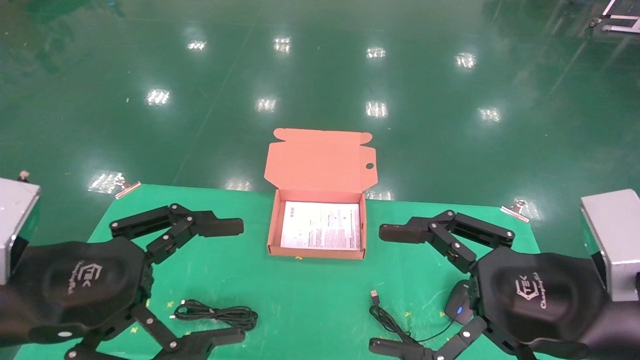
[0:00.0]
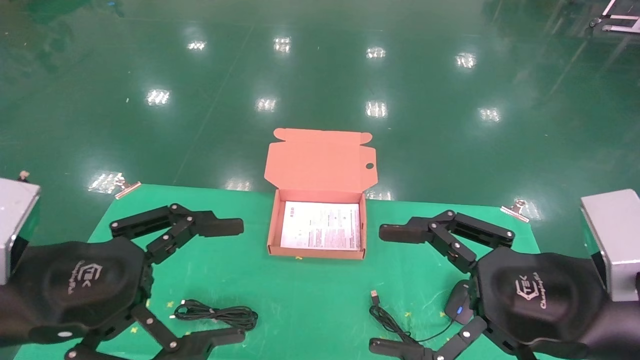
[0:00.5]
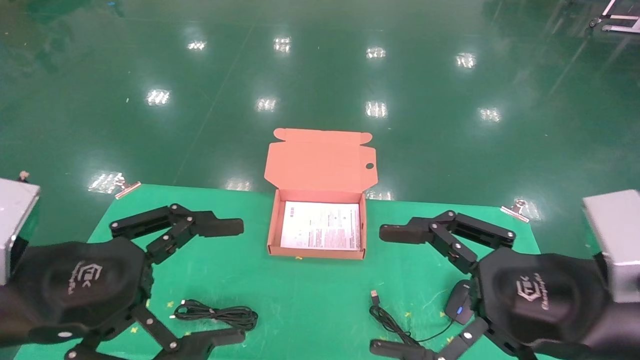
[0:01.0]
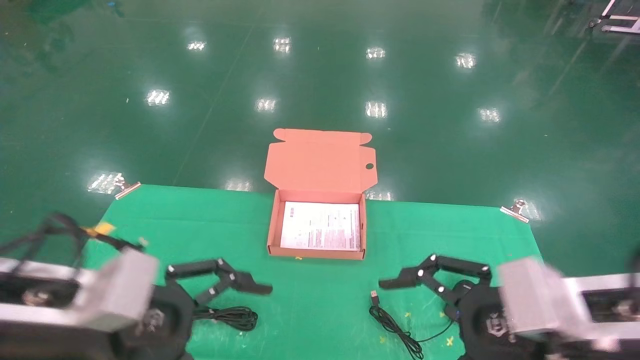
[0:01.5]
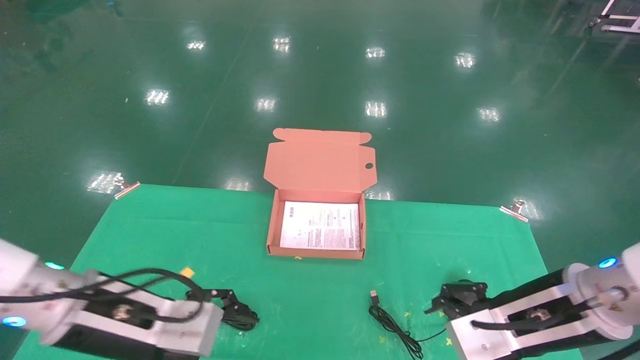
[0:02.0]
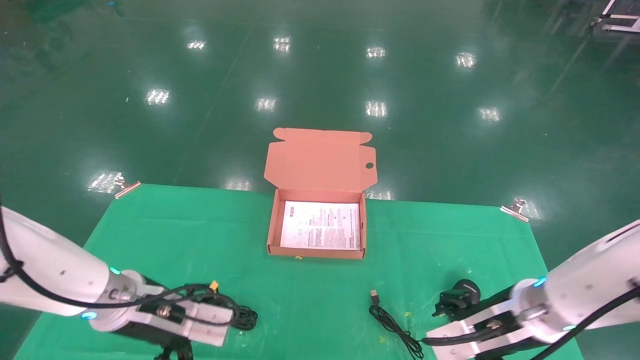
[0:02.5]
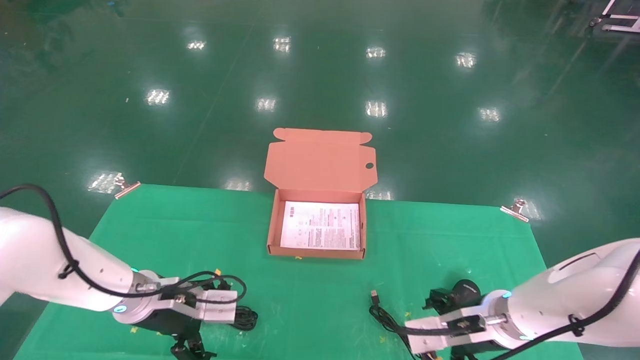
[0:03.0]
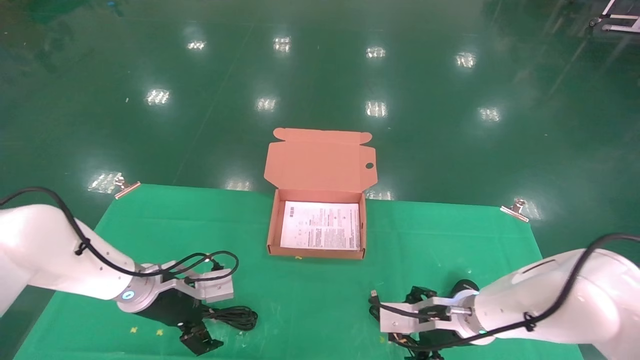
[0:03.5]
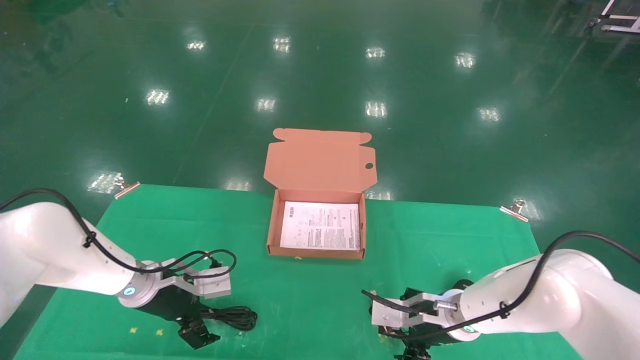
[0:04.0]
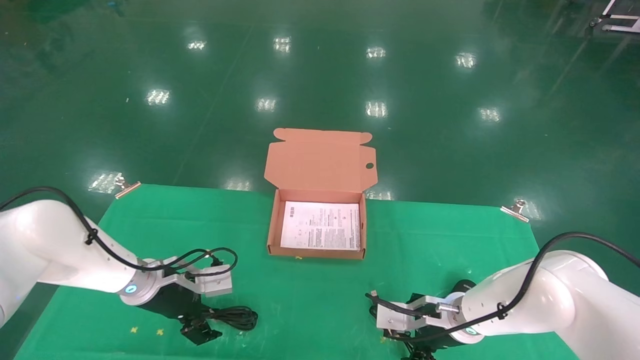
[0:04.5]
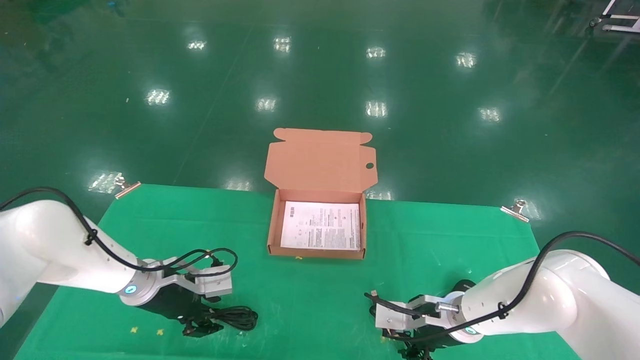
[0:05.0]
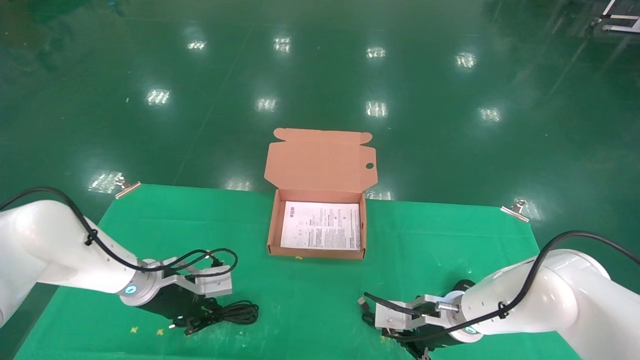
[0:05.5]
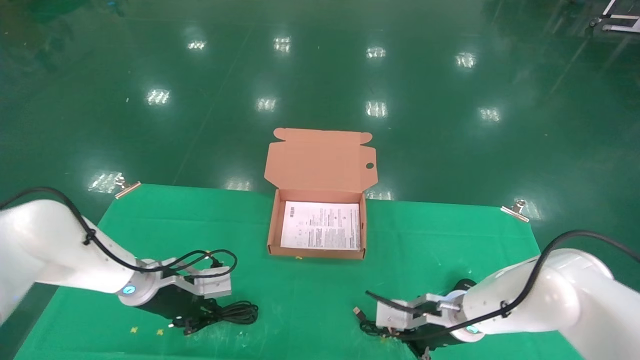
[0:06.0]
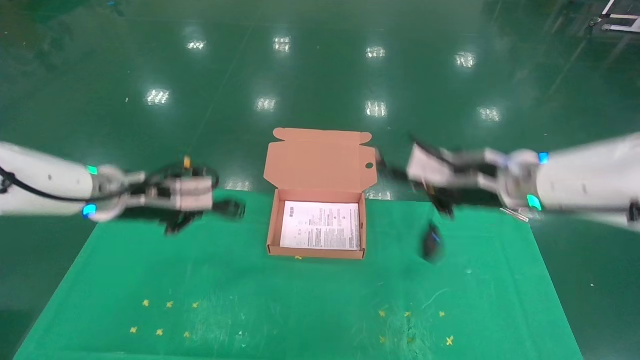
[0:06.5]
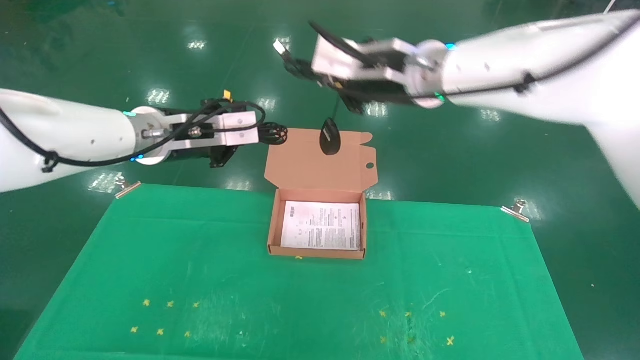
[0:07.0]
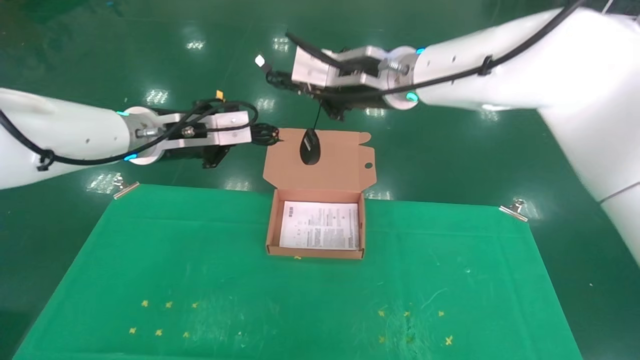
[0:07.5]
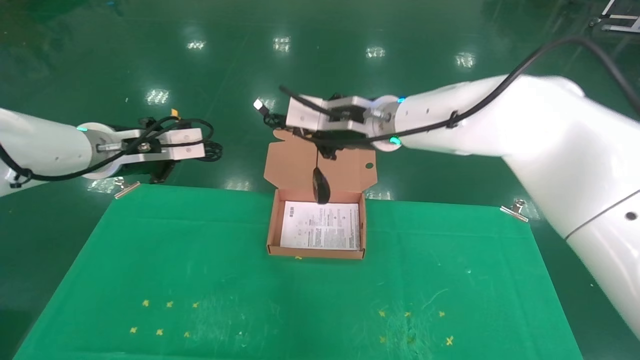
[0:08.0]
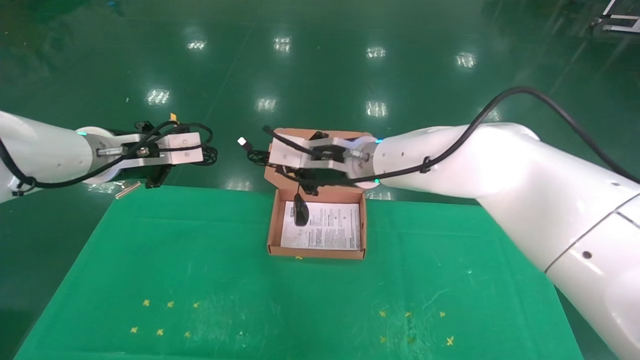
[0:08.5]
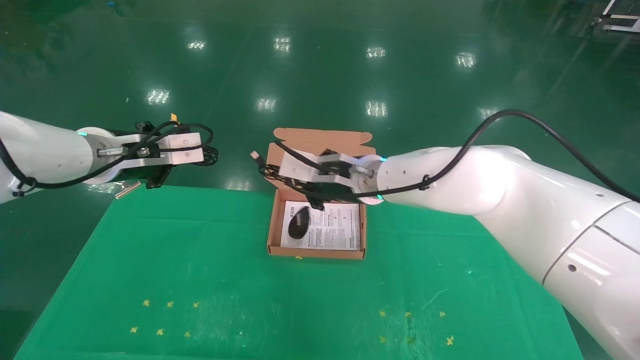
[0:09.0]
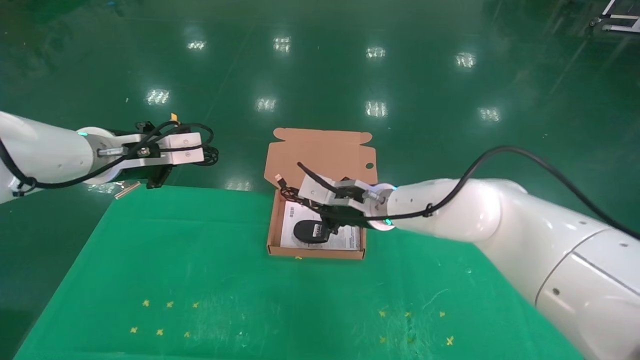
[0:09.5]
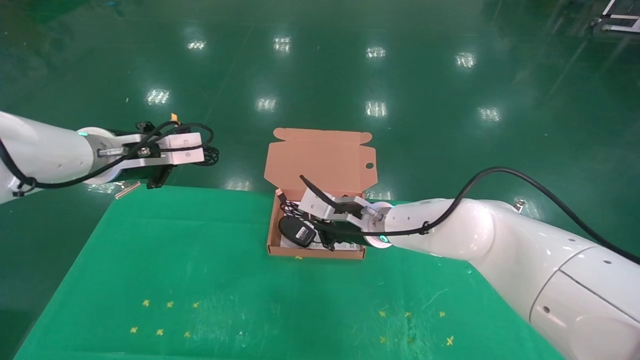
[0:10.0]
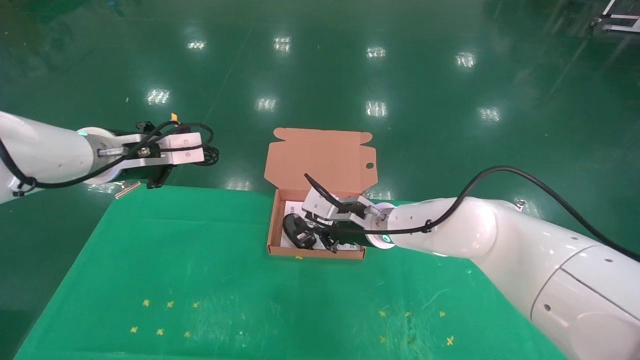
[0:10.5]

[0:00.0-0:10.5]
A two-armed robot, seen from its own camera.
Task of the whole recording: grasp data cable left put into box grasp mouse right put into box.
Step, 0:01.5 to 0:06.5: Grab and pick up both the mouse and power cord from the accessory packaging area at the same time.
0:00.0 to 0:02.0: The two grippers go about 10 cm forward and downward.
0:02.0 to 0:04.0: The left gripper moves forward and downward, roughly 20 cm. The right gripper is displaced downward, forward and to the left by some 20 cm.
0:04.0 to 0:06.5: Both grippers travel together upward, some 20 cm. The right gripper closes its fingers; the left gripper closes its fingers.
0:06.5 to 0:08.5: The right gripper heads to the left, covering about 15 cm.
0:08.5 to 0:10.5: The right gripper heads downward, covering roughly 10 cm.

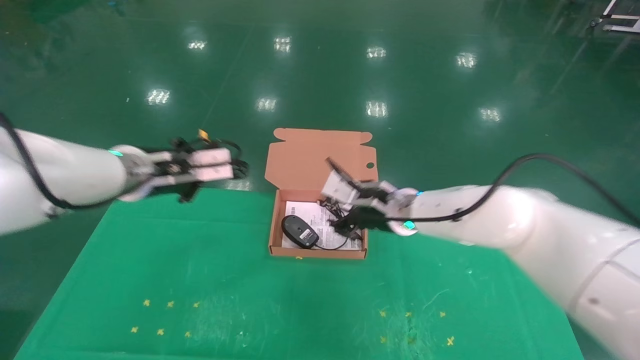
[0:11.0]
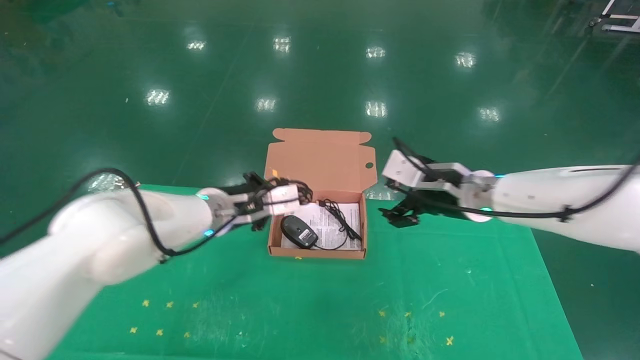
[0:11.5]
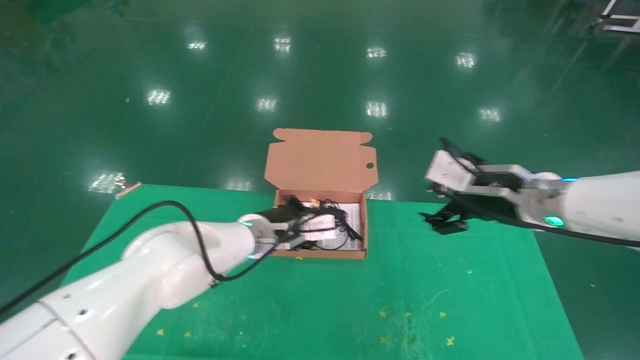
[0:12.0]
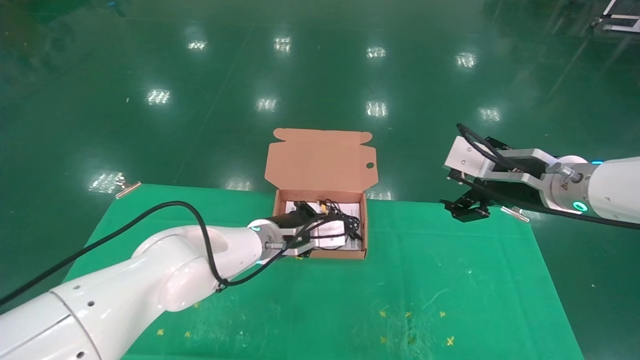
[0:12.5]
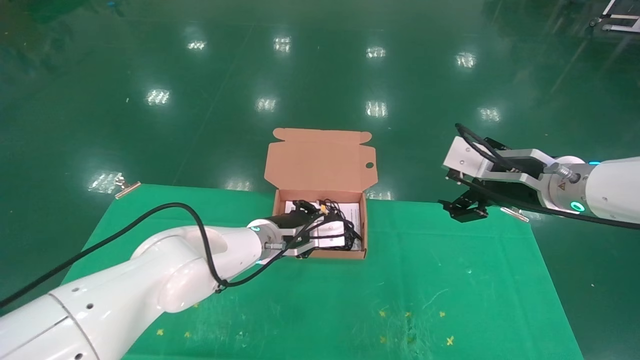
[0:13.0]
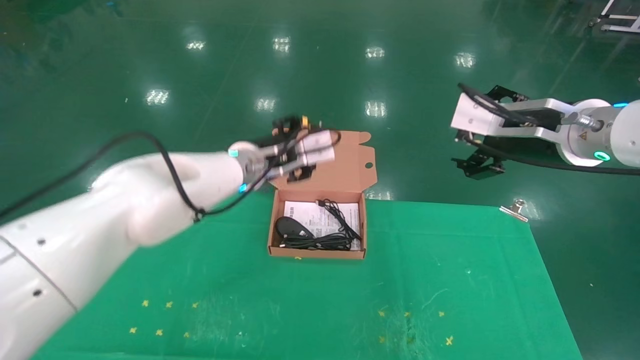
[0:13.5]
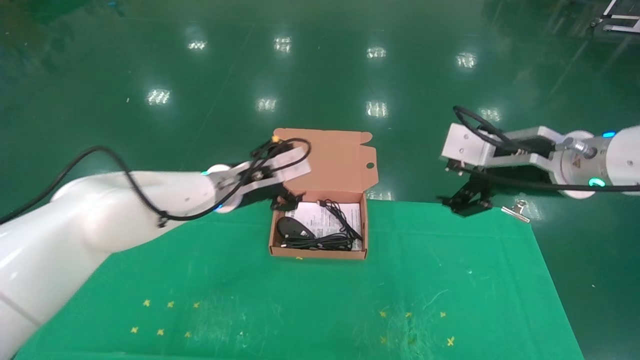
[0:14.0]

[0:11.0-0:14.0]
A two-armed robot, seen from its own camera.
Task of the whole recording: grasp data cable left put into box grasp mouse right put into box.
Step, 0:11.0 to 0:13.5: Place the mouse and power cord into the box.
0:11.0 to 0:12.5: The right gripper travels to the right, backward and upward by about 20 cm, and opens up, while the left gripper shifts roughly 20 cm to the right and downward.
0:12.5 to 0:14.0: The left gripper shifts roughly 10 cm to the left and upward, and opens.

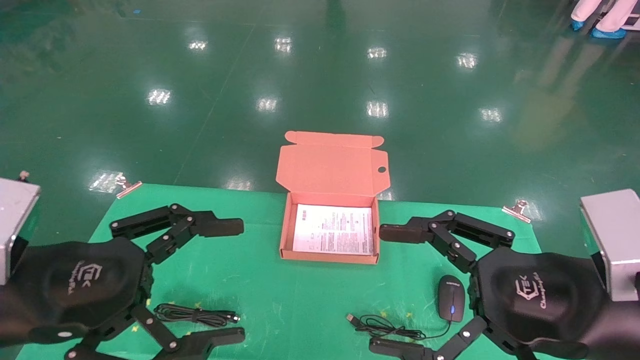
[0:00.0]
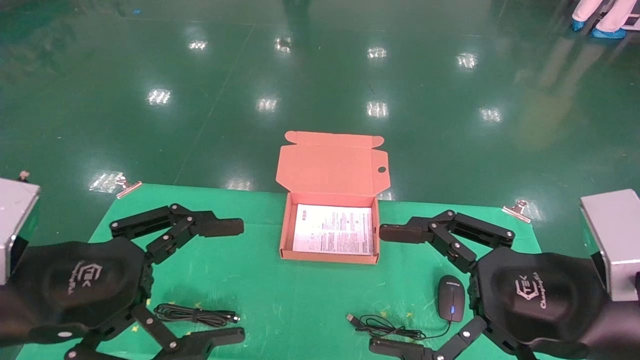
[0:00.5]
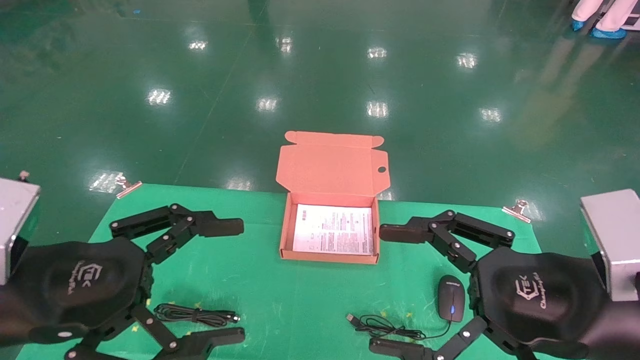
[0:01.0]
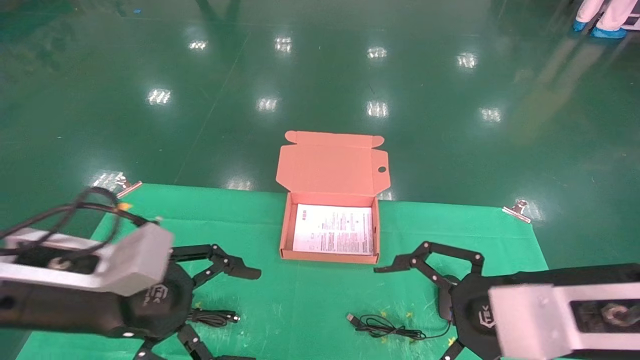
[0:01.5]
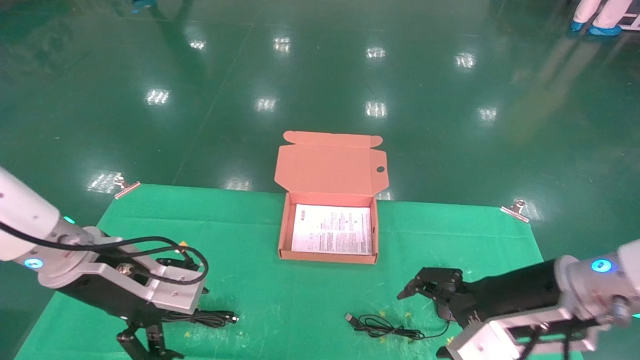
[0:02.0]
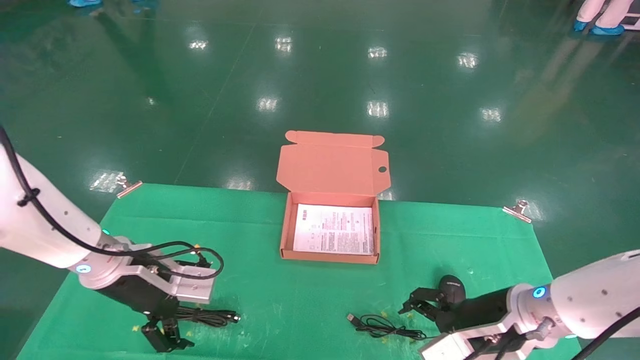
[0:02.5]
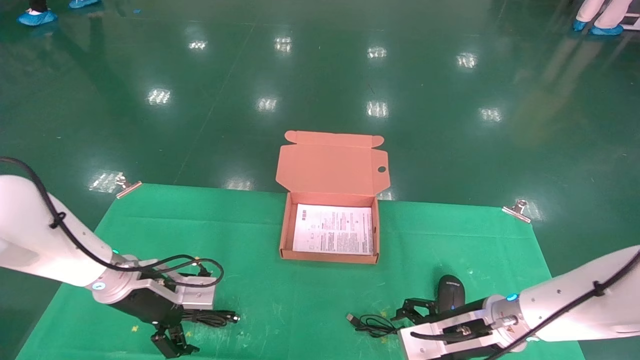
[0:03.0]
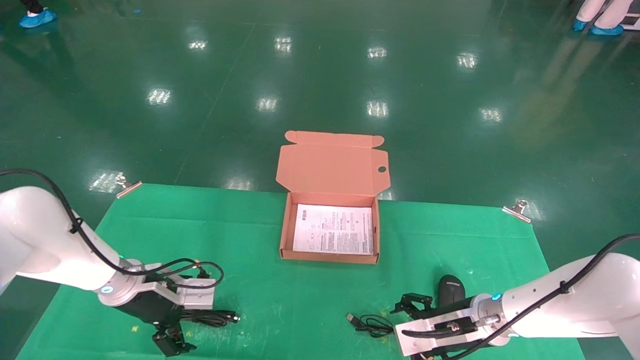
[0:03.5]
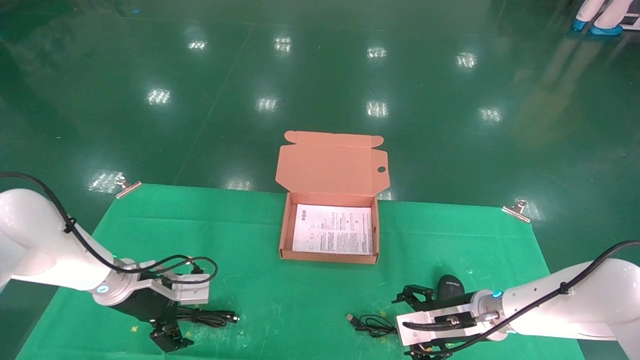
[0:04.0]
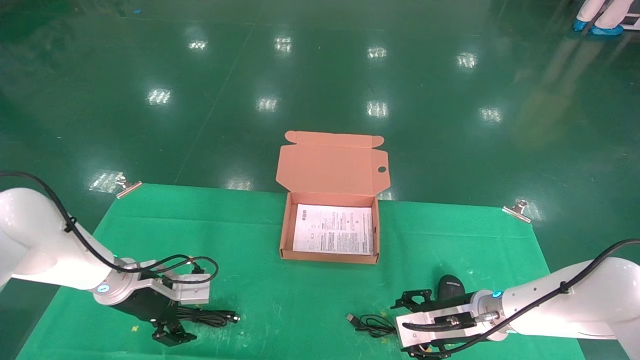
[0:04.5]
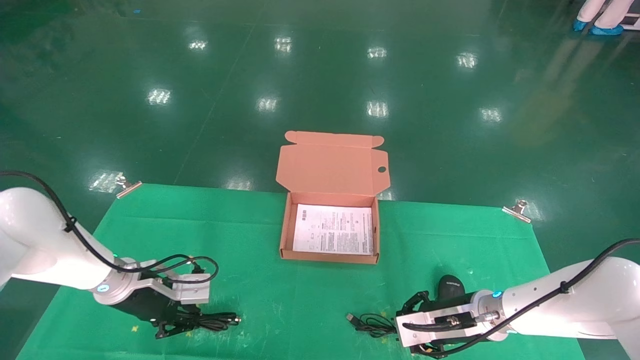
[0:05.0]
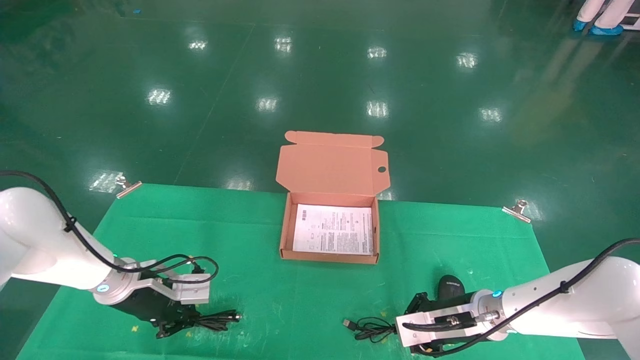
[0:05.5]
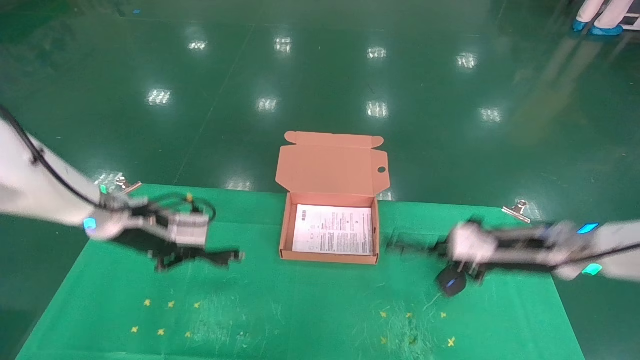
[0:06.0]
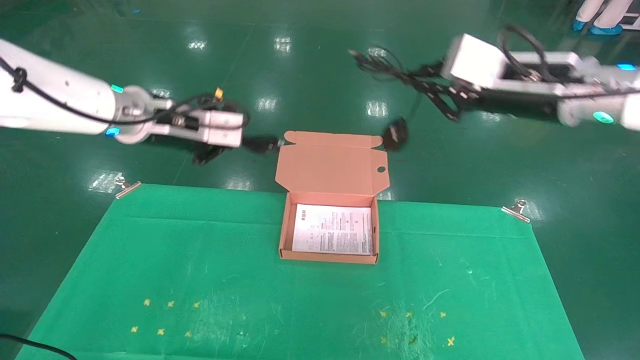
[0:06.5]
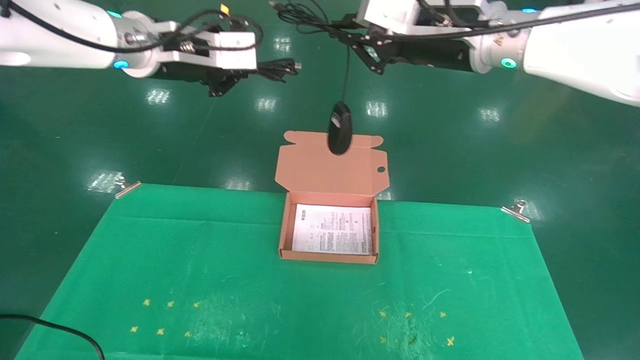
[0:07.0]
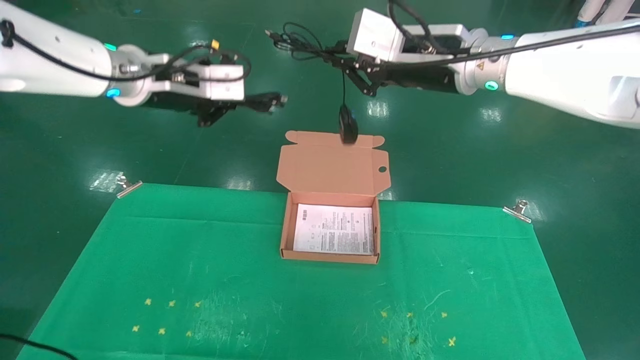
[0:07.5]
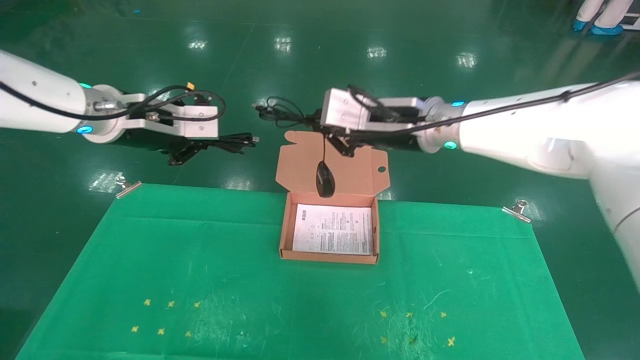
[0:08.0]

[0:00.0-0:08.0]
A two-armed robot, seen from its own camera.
Task of the whole recording: grasp data cable left put into box grasp mouse right put into box.
Step, 0:01.5 to 0:05.0: Grab and pick up both the mouse and power cord from the accessory packaging area at the same time.
0:00.0 to 0:02.0: The two grippers go roughly 10 cm forward.
0:02.0 to 0:04.0: The left gripper moves forward and downward, roughly 15 cm; the right gripper heads downward and forward, covering some 20 cm.
0:04.0 to 0:06.0: Both grippers move upward, some 15 cm. The left gripper closes its fingers. Meanwhile the right gripper closes.
0:06.0 to 0:08.0: The left gripper moves upward, about 15 cm, while the right gripper is displaced to the left and upward by roughly 20 cm.
